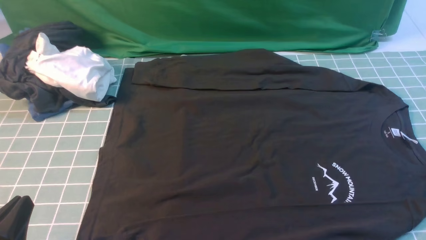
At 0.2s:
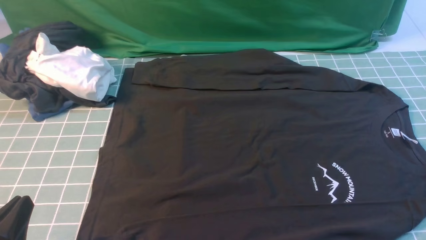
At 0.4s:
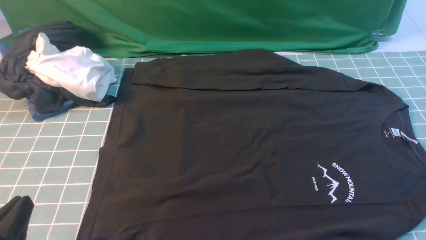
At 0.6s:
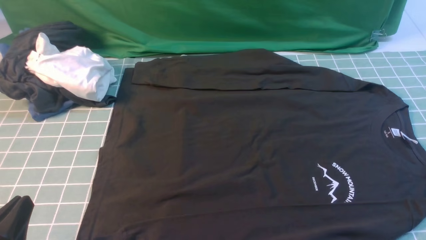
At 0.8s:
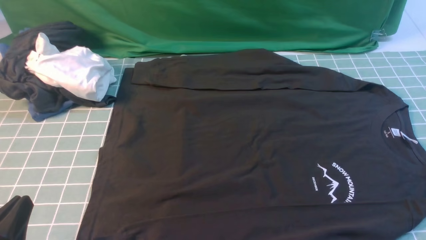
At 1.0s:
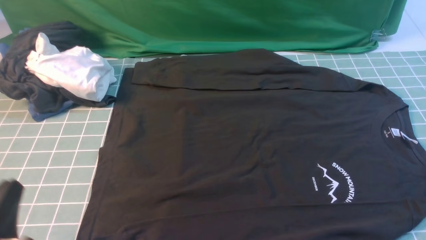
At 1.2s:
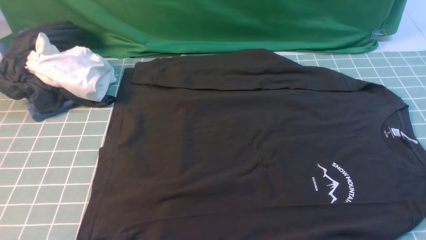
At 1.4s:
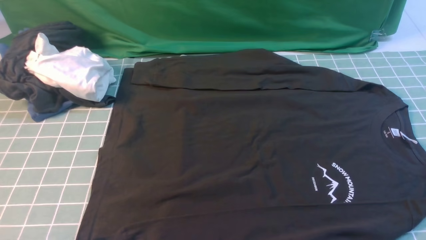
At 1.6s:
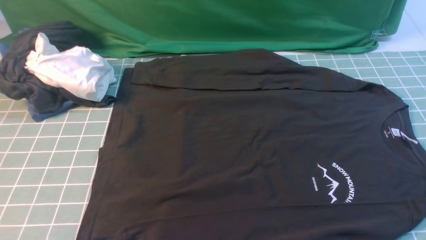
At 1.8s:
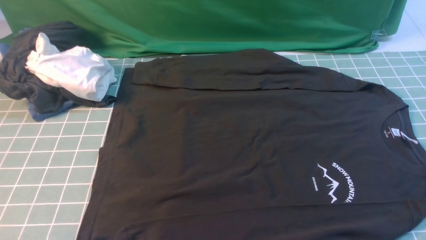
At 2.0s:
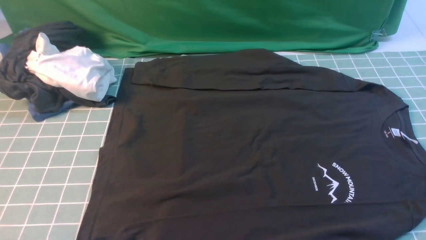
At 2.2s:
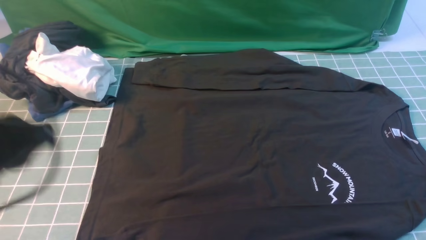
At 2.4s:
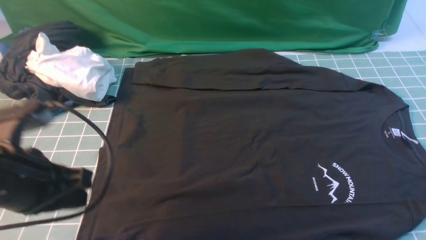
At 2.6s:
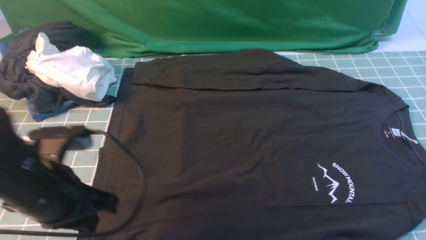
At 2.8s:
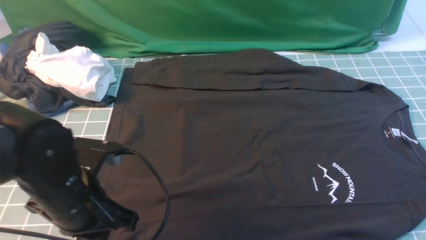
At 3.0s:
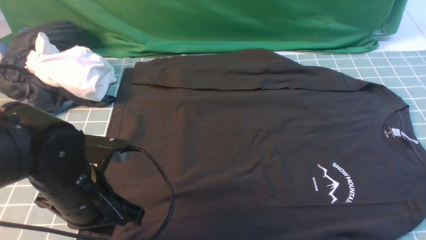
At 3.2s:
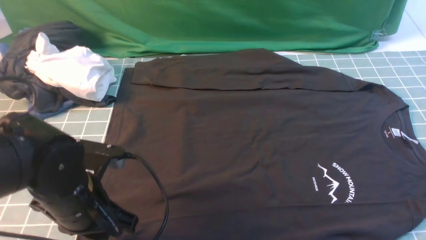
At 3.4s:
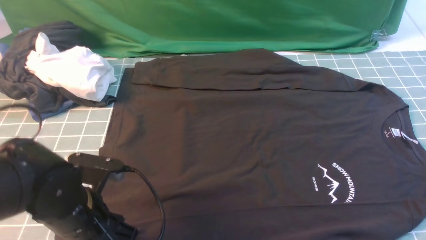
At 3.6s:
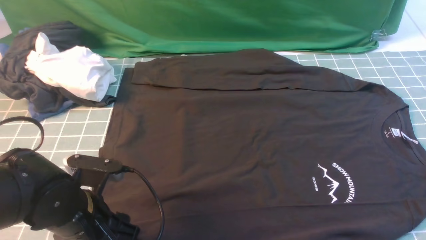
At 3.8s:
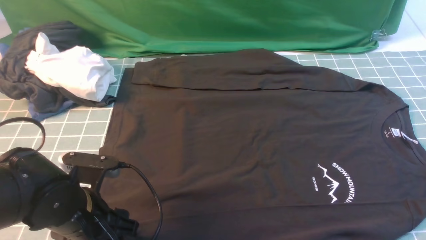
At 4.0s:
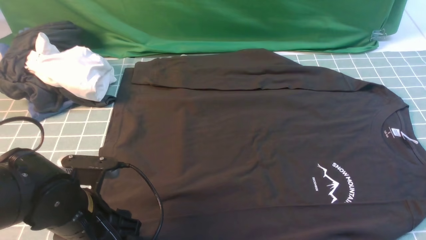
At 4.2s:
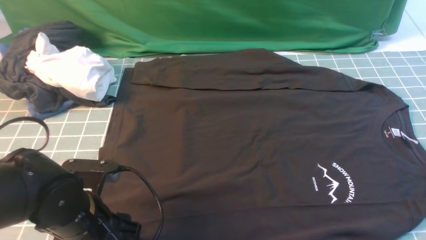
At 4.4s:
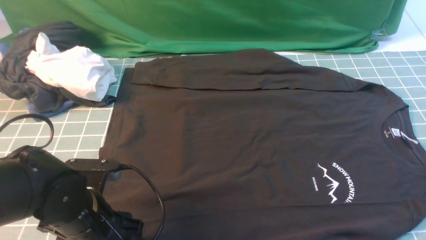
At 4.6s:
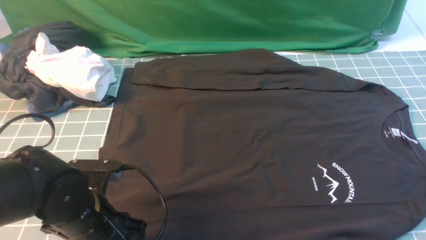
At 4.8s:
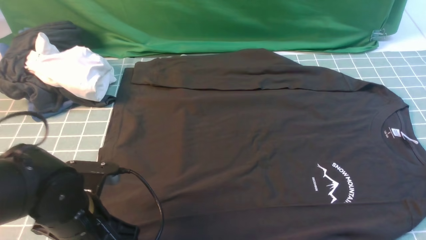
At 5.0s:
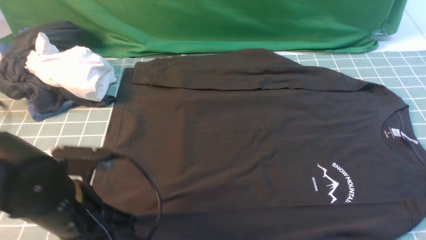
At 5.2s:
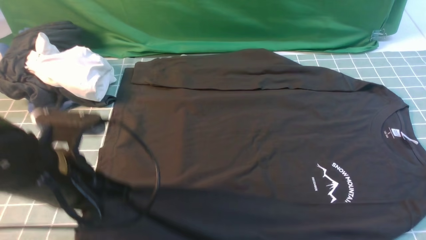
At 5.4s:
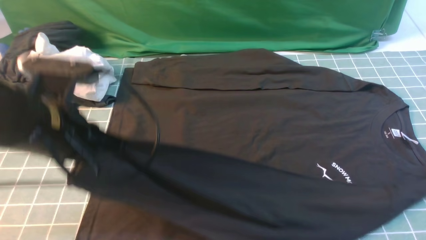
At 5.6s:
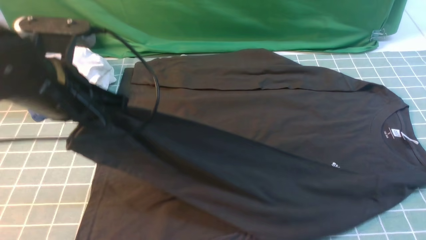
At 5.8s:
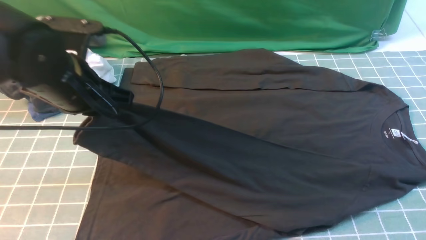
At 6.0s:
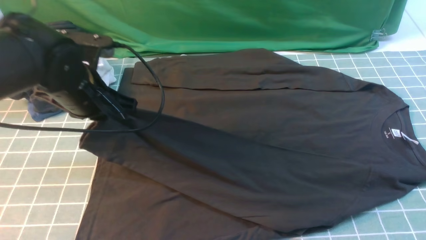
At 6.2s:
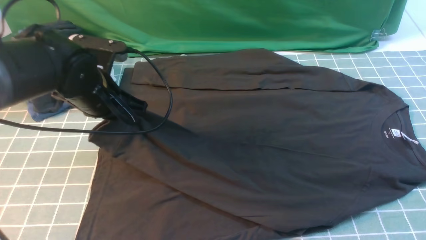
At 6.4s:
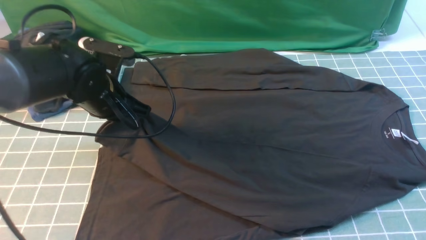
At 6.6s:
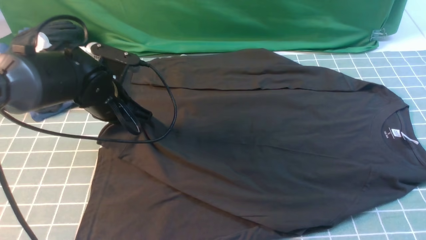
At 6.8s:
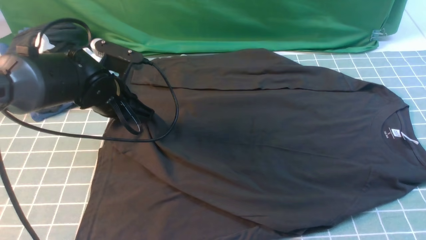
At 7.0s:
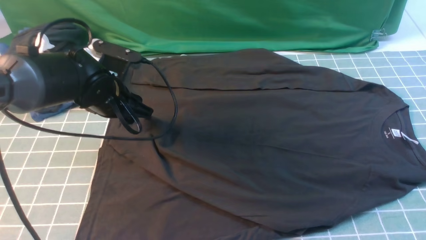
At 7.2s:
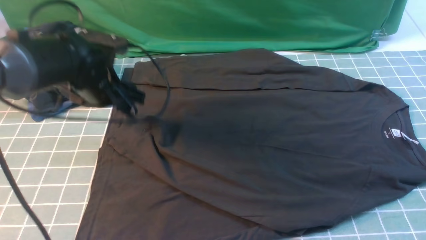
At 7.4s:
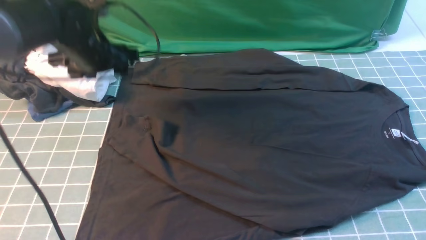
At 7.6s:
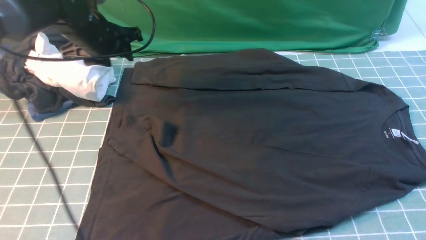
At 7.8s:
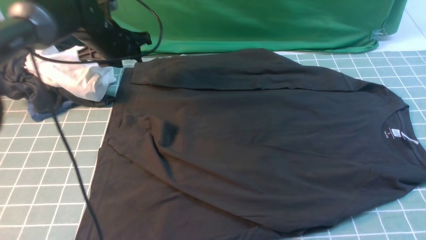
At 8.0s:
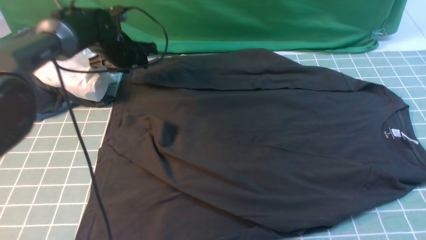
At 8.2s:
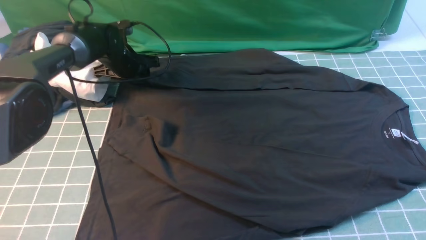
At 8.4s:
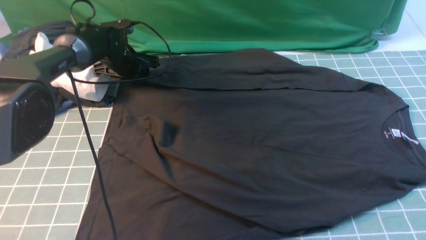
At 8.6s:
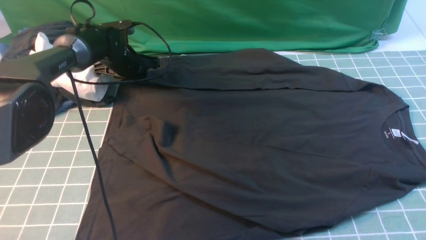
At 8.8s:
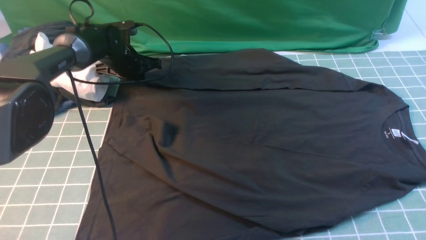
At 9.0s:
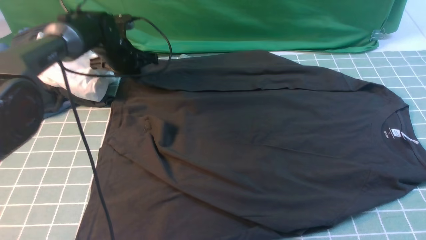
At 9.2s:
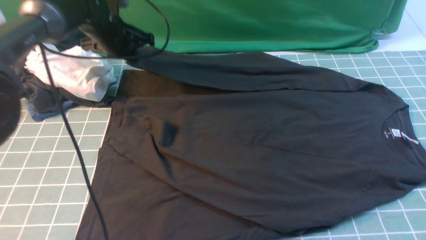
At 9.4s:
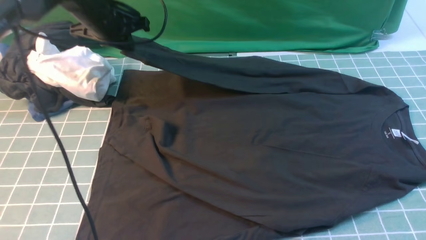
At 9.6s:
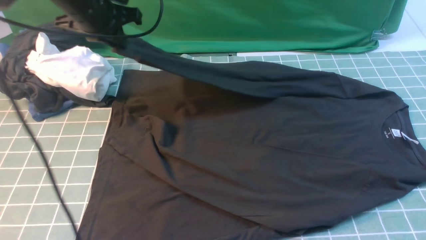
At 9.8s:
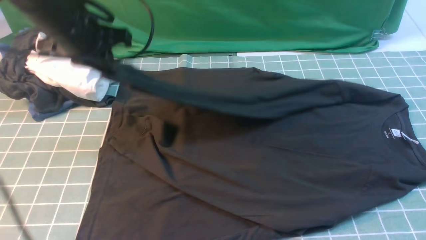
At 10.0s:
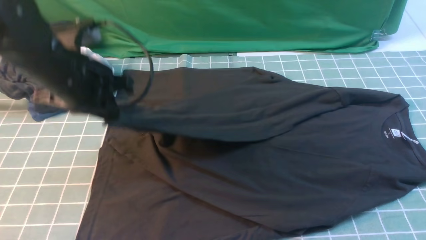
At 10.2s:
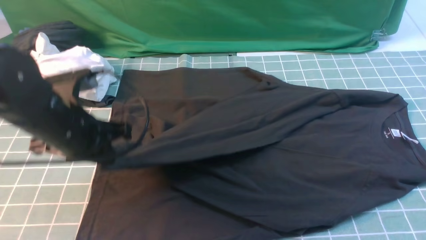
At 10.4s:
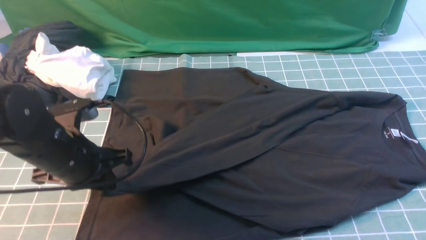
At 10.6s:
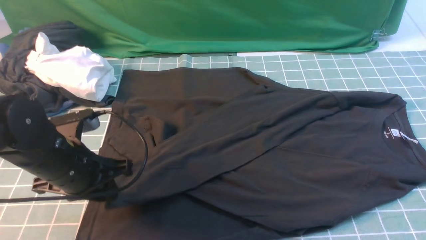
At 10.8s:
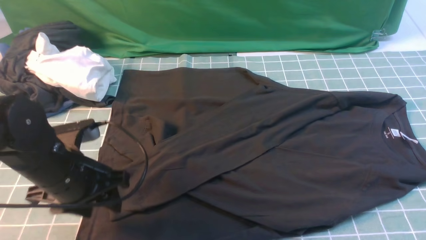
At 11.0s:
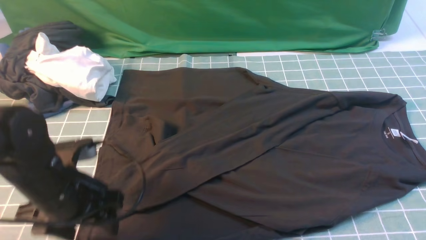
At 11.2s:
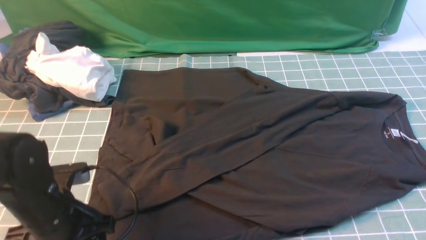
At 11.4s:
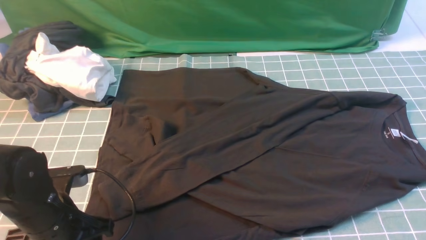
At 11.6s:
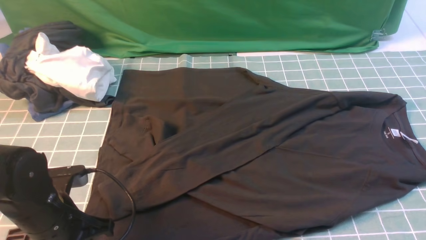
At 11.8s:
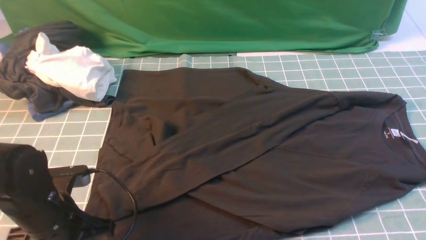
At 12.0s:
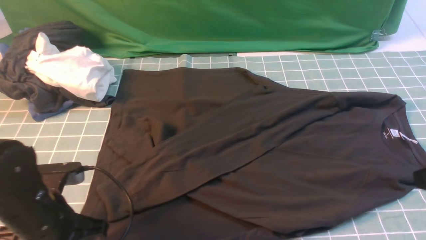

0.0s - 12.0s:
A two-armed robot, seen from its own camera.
Step, 0.0s - 4.8s: use the left arm to clamp the cuff closest to it.
Step, 5.0s - 7.0s: use the left arm to drag and place the cuff at the centered position on the left edge of the fabric.
Step, 7.2s - 8.8s: use the left arm to clamp the cuff farthest from it.
Step, 9.2s - 10.6s: use the left arm to drag and drop the cuff onto the cuff closest to the left arm.
0.0s - 1.6s: The left gripper goes some 15 cm upward.
1.6s - 3.0s: The right gripper heads upward and forward, covering some 10 cm, and closes; the left gripper travels forward, downward and to the right by roughly 25 cm.
3.0s - 4.4s: The left gripper opens up.
4.4s - 6.0s: The left gripper is displaced forward and upward by approximately 15 cm, and closes.
6.0s - 7.6s: The left gripper travels forward by about 15 cm, and opens.
7.6s - 9.0s: The left gripper shifts roughly 10 cm forward and downward, and closes up.
9.0s - 10.4s: The left gripper is displaced backward by approximately 25 cm.
10.4s - 12.0s: The left gripper heads backward, covering about 5 cm, and opens, then closes again.

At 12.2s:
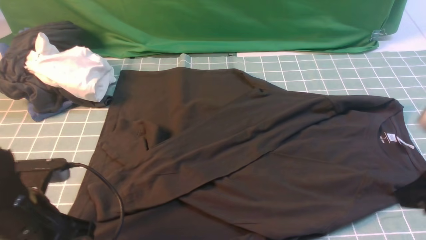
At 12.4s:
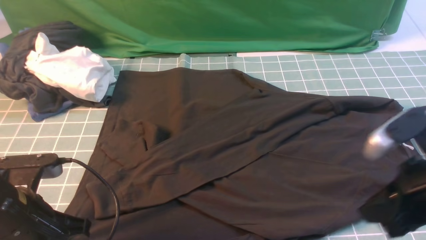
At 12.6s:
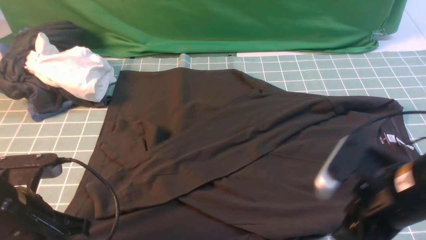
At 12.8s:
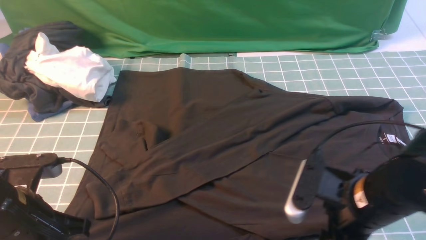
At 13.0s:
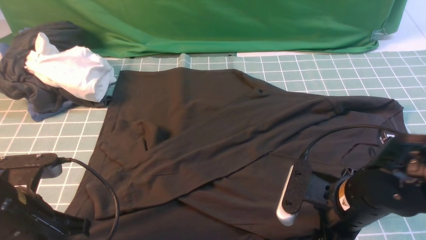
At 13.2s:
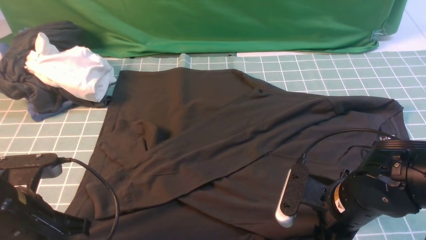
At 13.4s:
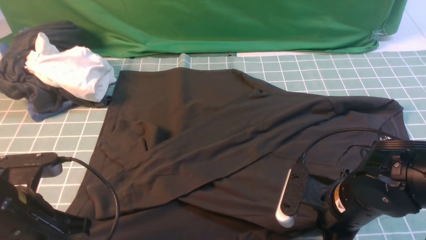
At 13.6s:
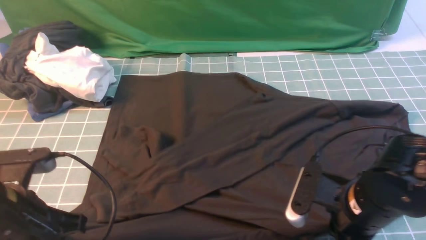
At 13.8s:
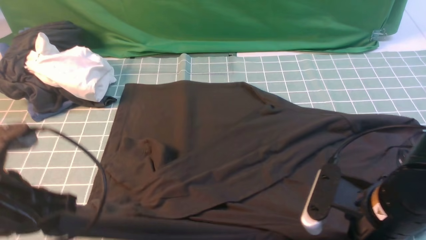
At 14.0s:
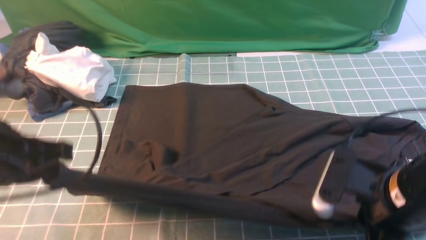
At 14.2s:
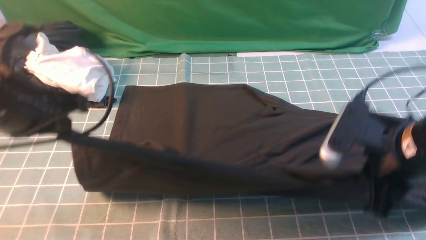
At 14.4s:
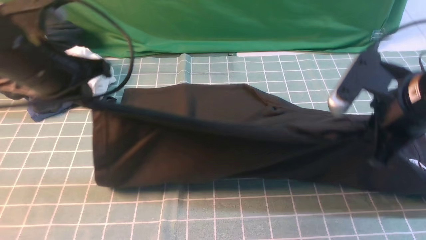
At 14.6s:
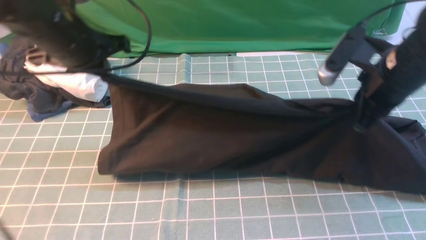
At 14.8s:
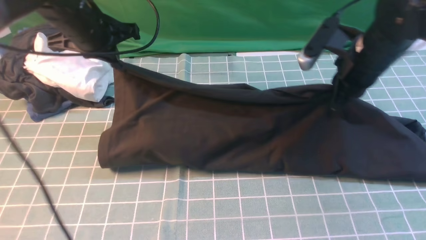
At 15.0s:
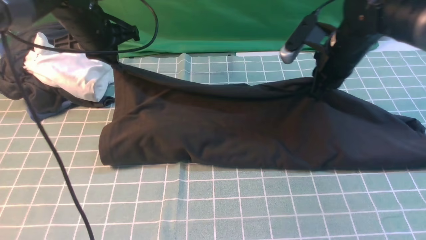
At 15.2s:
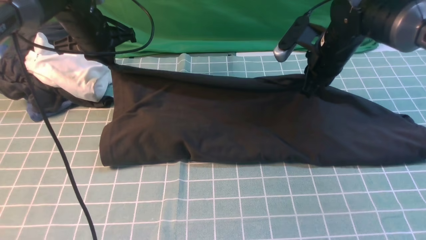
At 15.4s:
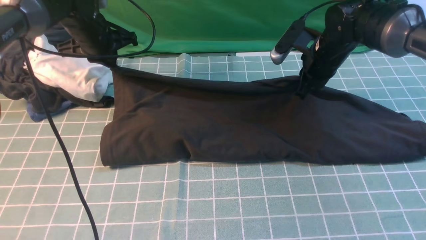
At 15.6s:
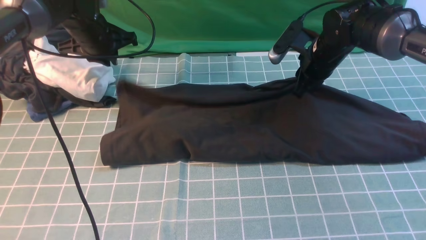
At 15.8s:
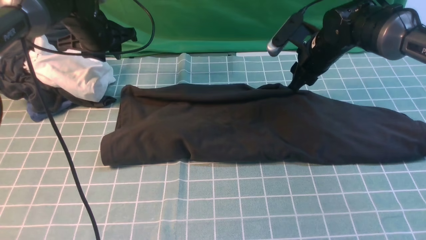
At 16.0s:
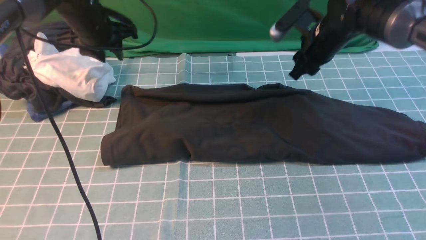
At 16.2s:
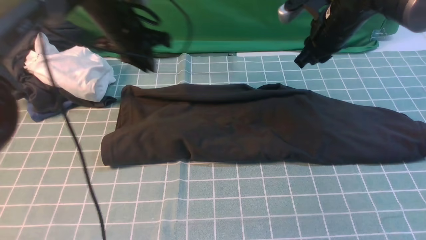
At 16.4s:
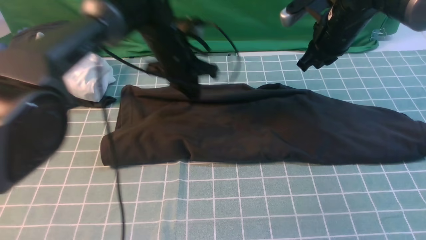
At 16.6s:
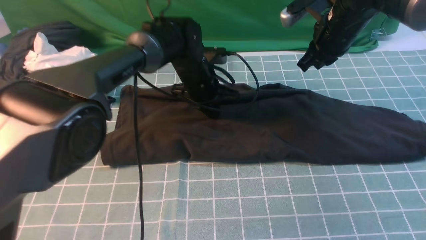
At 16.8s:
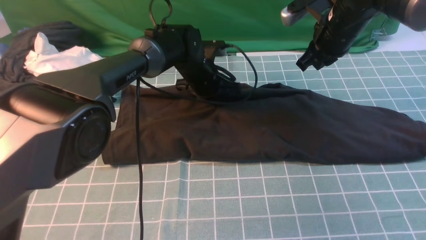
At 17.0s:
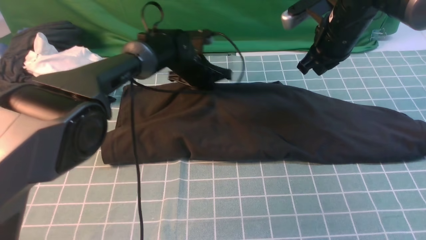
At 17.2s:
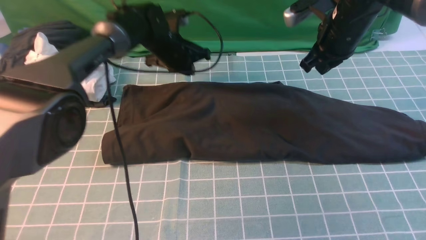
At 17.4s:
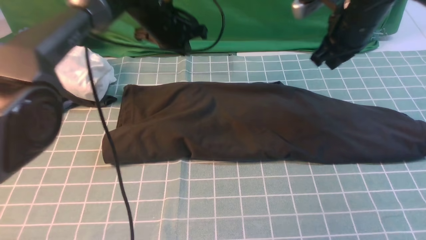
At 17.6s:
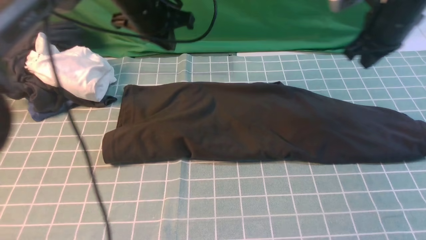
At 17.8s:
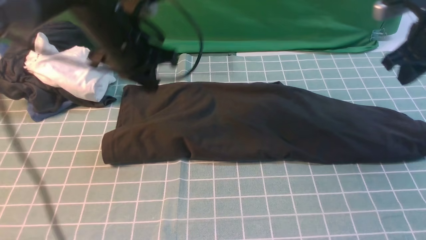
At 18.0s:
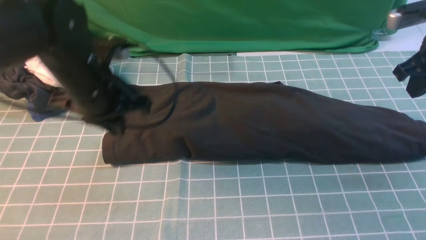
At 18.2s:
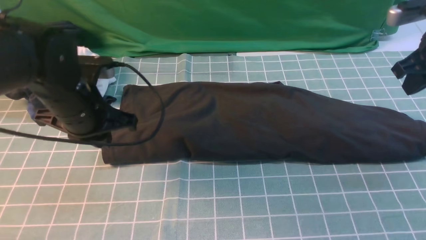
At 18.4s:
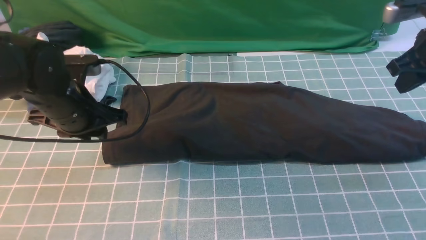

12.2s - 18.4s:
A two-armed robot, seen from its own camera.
Step, 12.2s - 13.6s: use both arms simultaneously to clamp the lower edge of the clothing fabric.
Step, 13.8s - 15.8s: use both arms to drag the lower edge of the fabric forward and fold it over the upper edge.
12.2s - 13.8s: The left gripper goes about 10 cm upward. The right gripper goes approximately 10 cm to the left and downward, and opens, then closes again.
13.8s - 15.4s: Both grippers travel together forward, approximately 30 cm.
15.4s - 16.8s: The right gripper shifts approximately 5 cm upward, and opens, then closes once more. The left gripper travels to the right and downward by approximately 20 cm, and opens and closes again.
16.8s - 18.4s: The left gripper moves backward, to the left and upward, some 25 cm, and opens up. Meanwhile the right gripper is displaced to the right and backward by some 15 cm.
